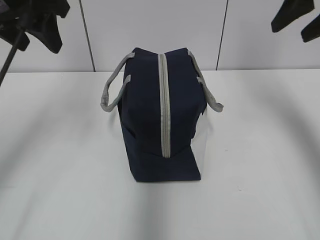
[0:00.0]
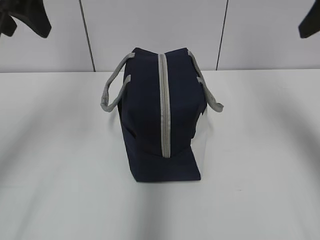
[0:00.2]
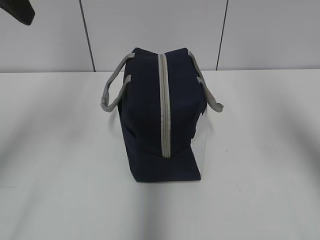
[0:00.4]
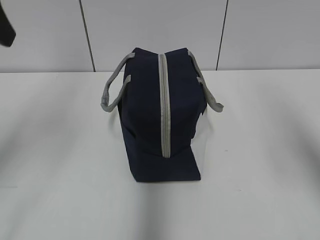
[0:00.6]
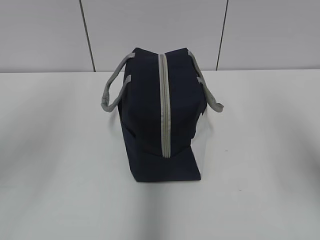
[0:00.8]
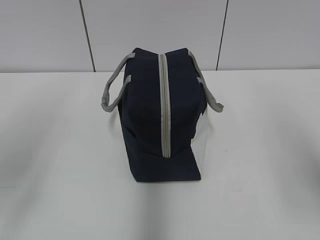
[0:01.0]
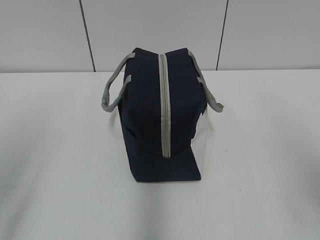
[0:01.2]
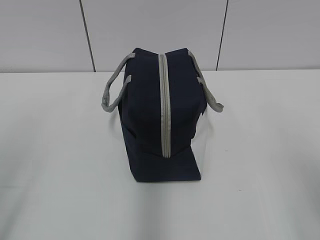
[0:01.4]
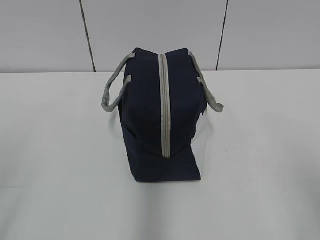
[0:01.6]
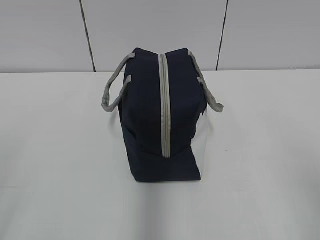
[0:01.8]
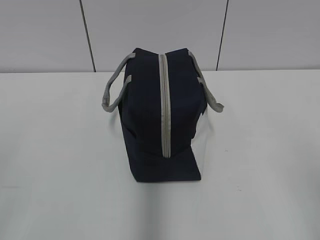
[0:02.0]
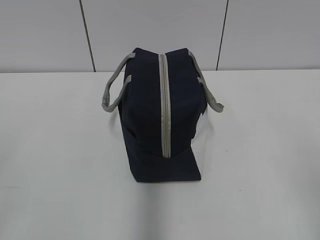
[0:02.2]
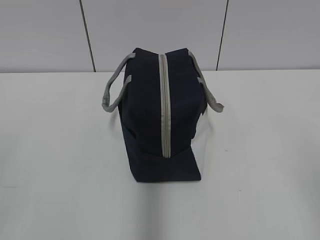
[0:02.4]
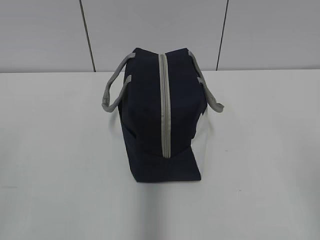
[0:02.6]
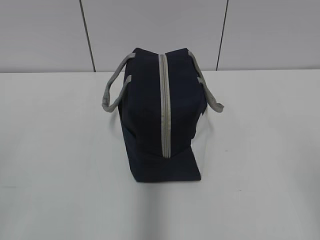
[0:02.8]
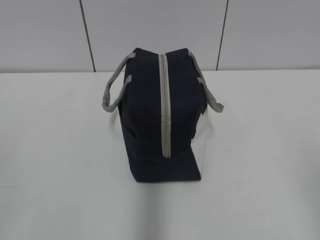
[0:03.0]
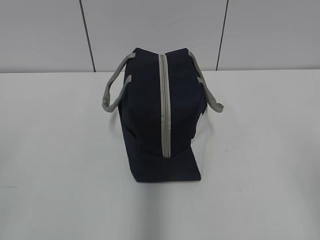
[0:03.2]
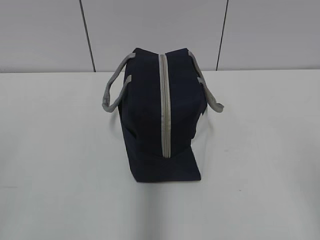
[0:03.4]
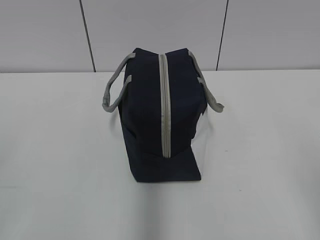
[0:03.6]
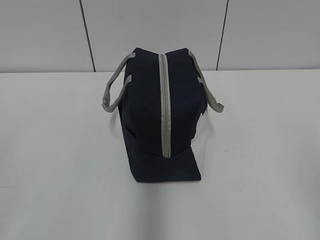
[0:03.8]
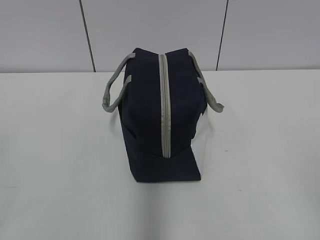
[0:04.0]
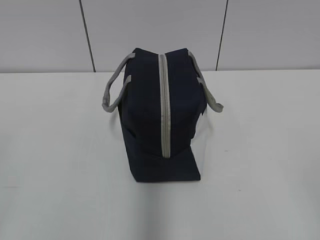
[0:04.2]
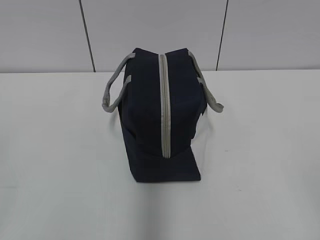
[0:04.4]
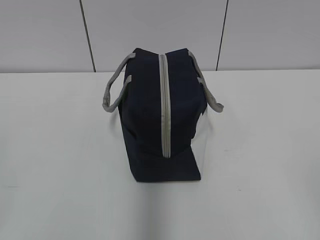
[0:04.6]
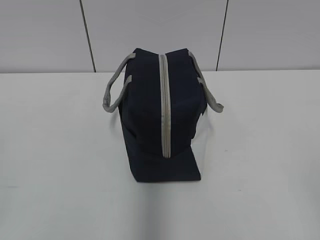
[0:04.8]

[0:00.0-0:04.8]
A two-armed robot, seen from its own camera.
0:00.0 to 0:01.6: The two grippers go some 25 cm backward.
